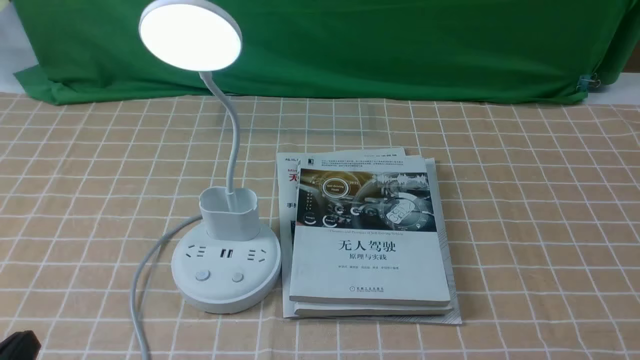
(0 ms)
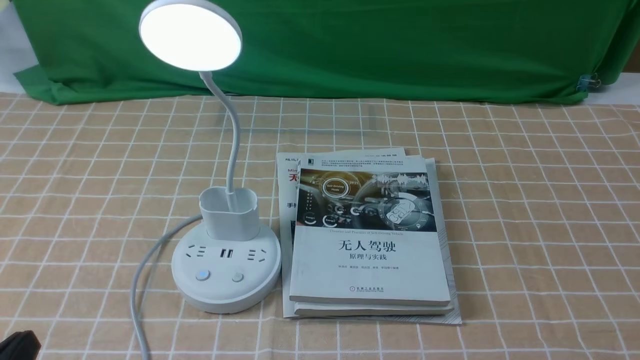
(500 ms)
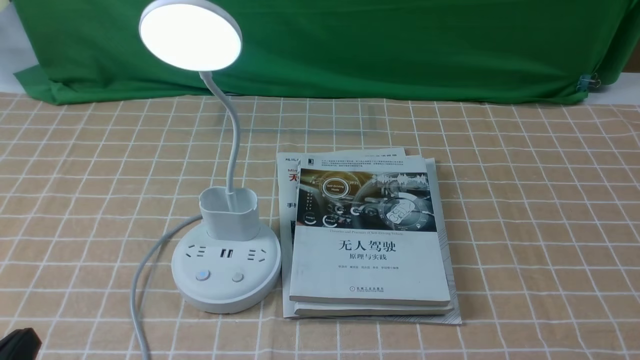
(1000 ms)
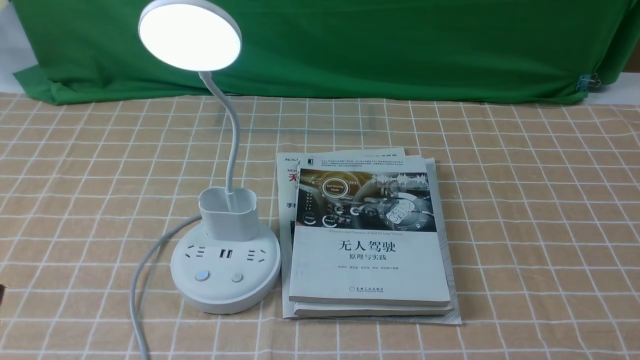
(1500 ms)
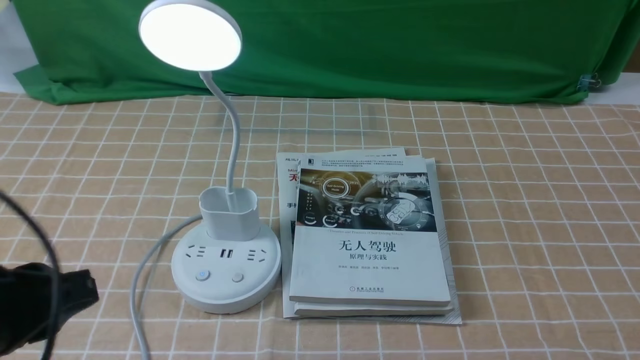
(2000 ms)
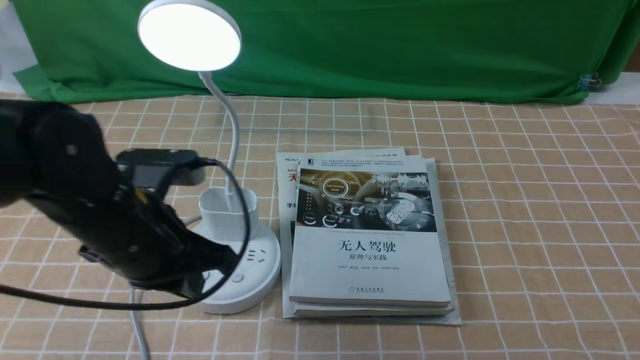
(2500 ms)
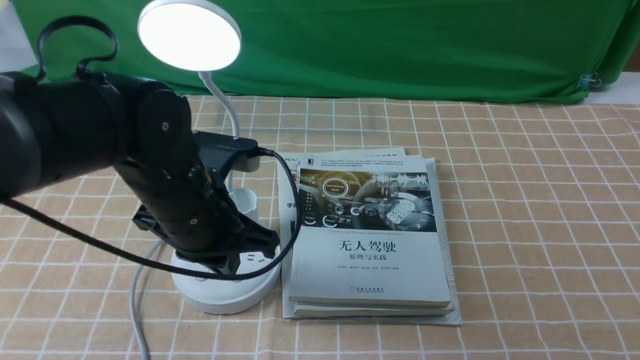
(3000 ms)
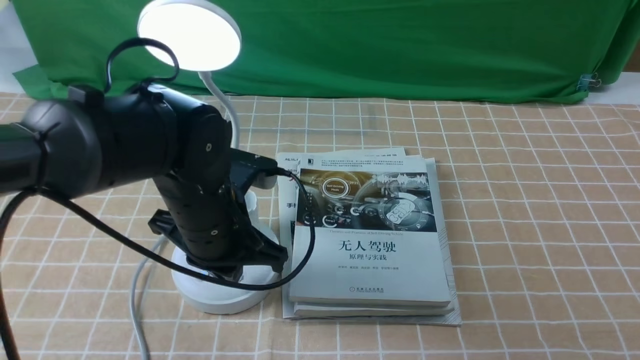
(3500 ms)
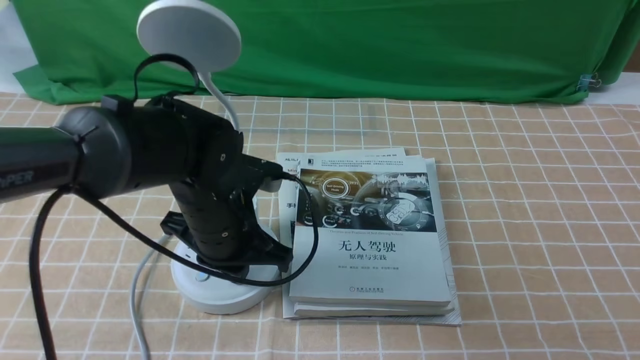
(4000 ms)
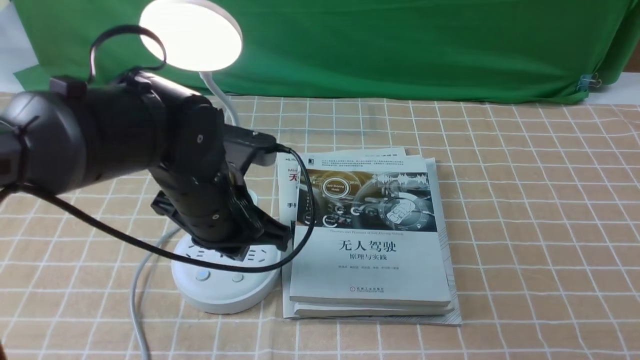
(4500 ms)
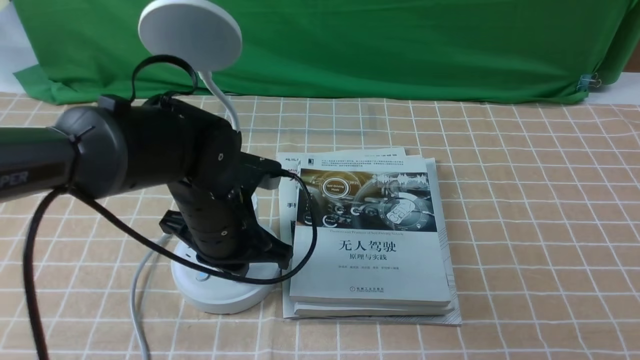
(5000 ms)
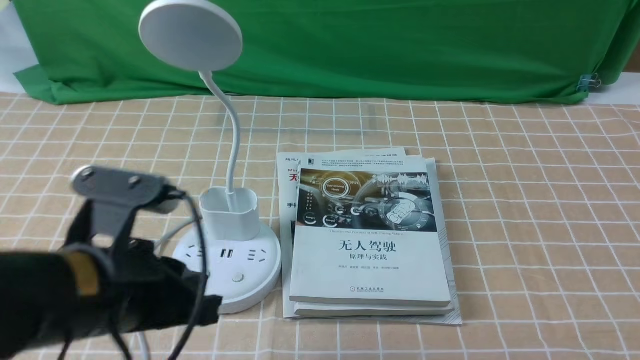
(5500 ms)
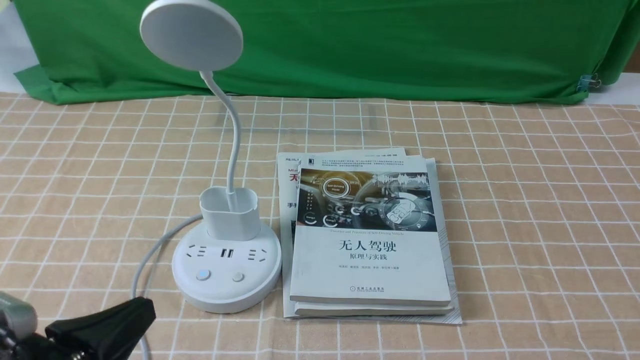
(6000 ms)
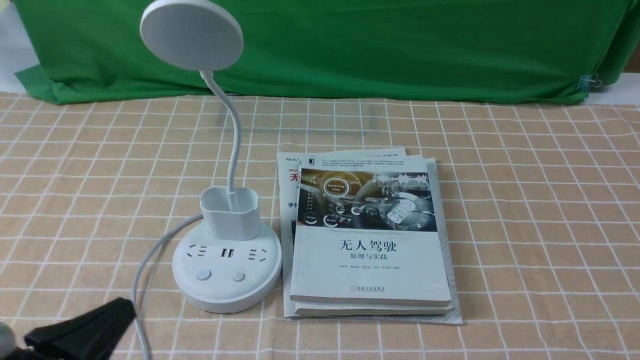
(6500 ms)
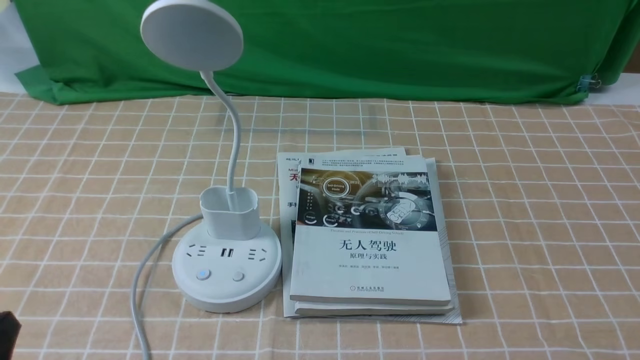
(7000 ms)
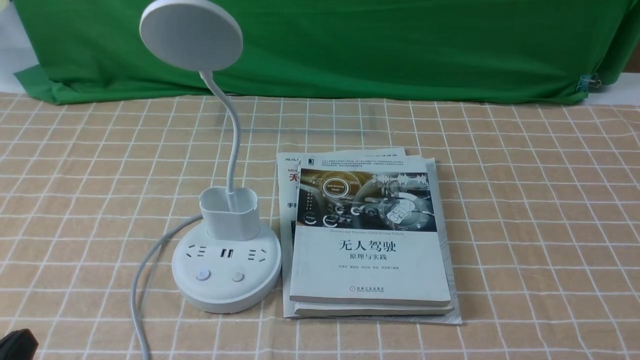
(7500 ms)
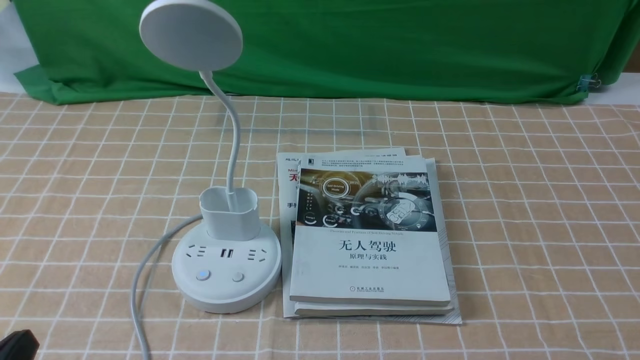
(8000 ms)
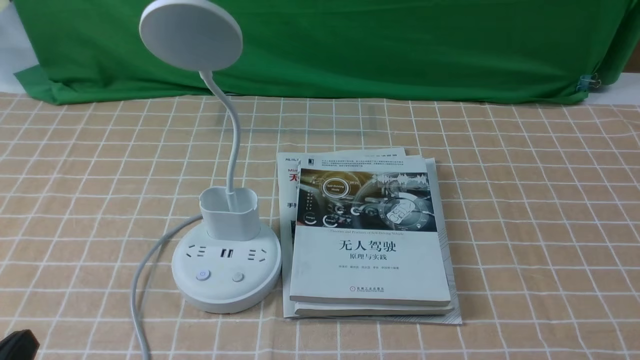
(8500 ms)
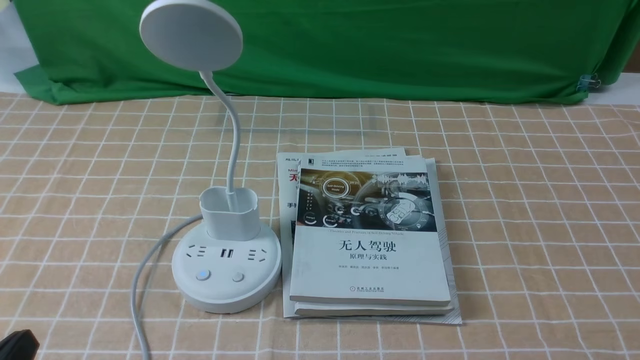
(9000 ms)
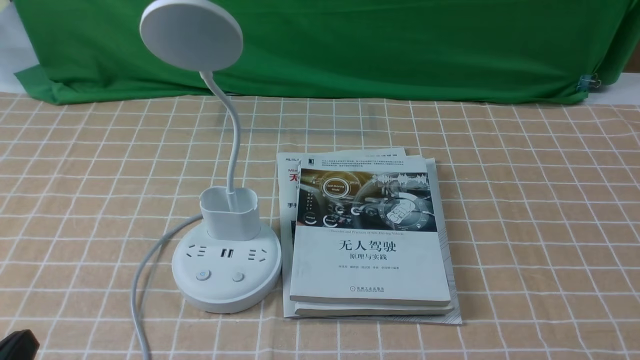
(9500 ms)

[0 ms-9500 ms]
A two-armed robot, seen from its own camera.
Task of the whole recording: turn off the desk lamp on the light coffee tablecloth by hand.
Step, 0 ms to 5000 ms: use the left arm to press the button switch on the lamp holder.
2000 ms to 4000 ms: The left gripper is displaced forward and to the right by about 25 cm, and closes its fingers.
4000 ms to 5500 ms: The left gripper is displaced backward and upward by roughly 10 cm.
5500 ms to 7500 ms: The left gripper goes roughly 20 cm backward, to the left and downward.
7500 ms to 9500 ms: Both grippers stay about where they are.

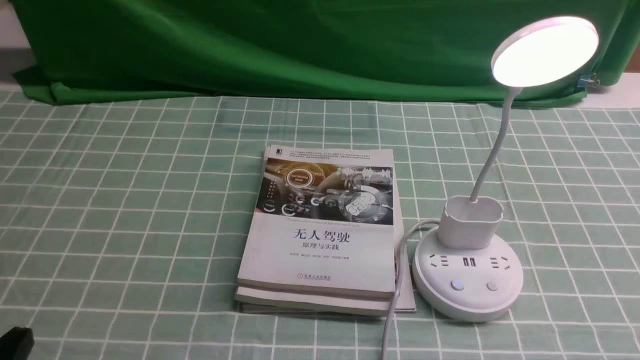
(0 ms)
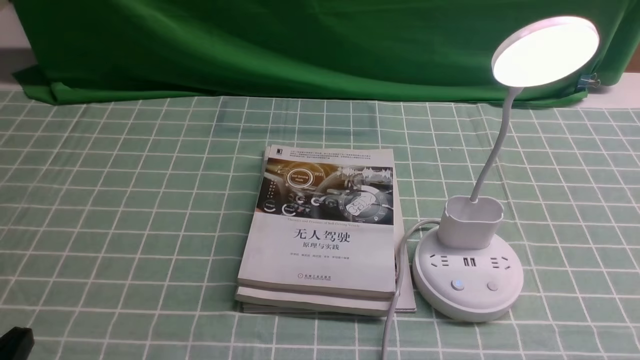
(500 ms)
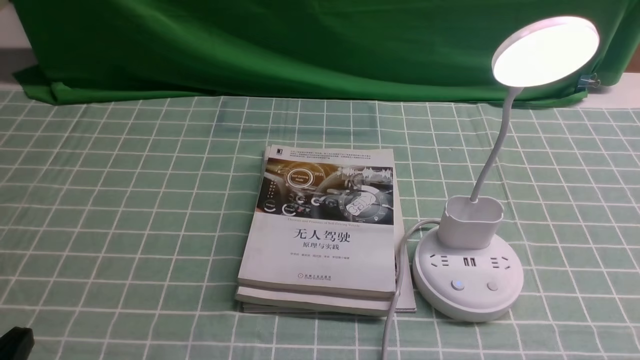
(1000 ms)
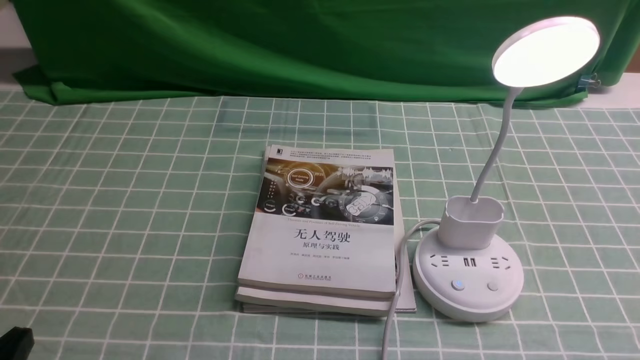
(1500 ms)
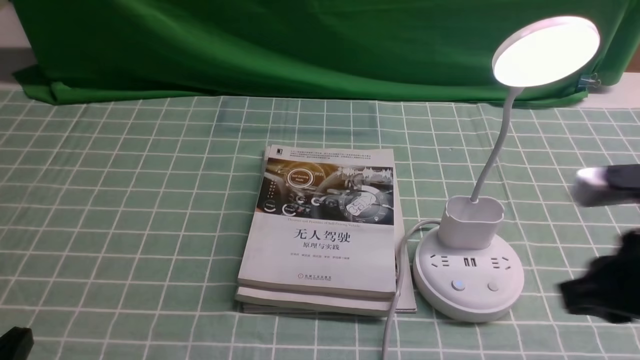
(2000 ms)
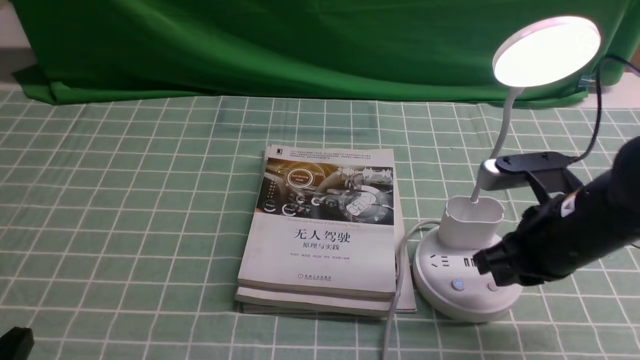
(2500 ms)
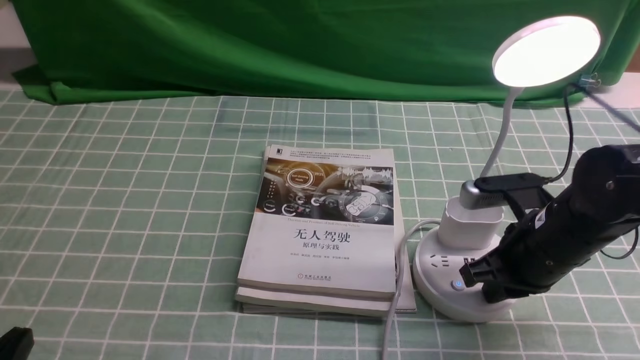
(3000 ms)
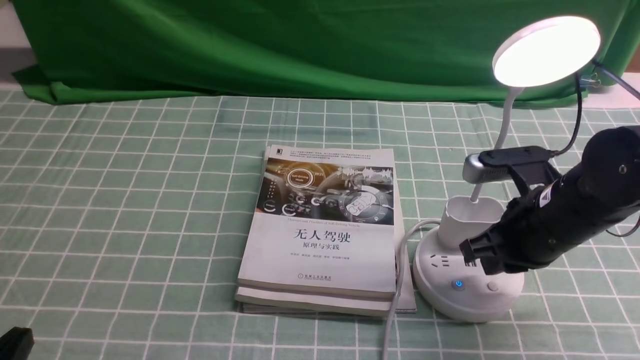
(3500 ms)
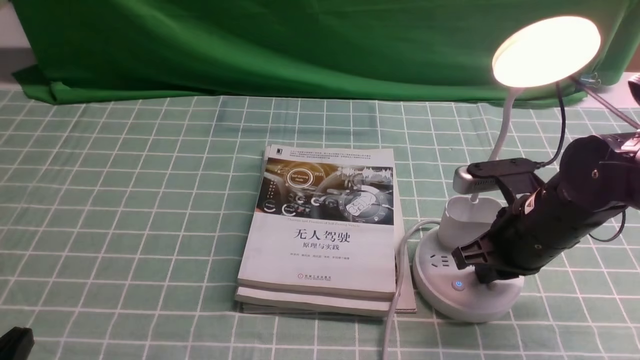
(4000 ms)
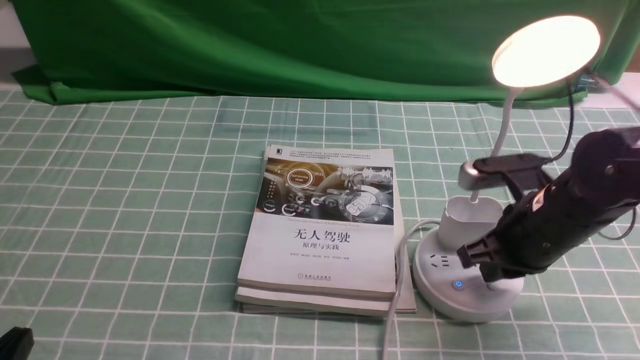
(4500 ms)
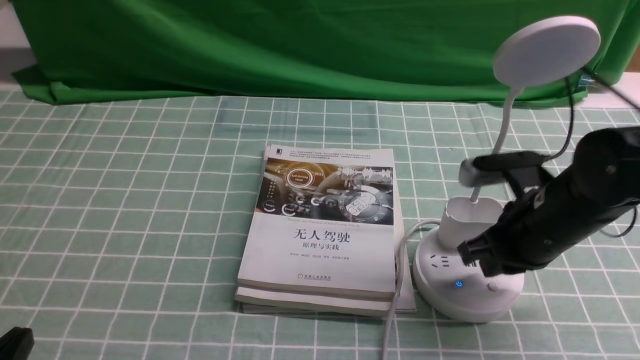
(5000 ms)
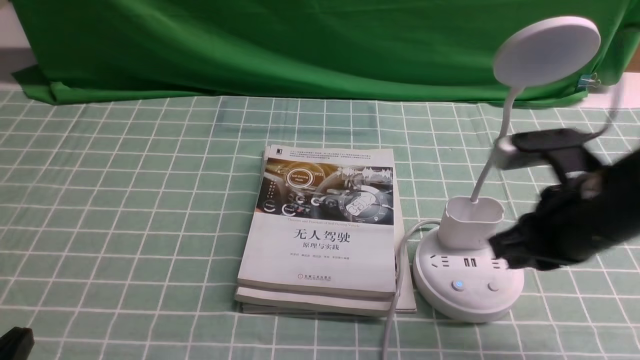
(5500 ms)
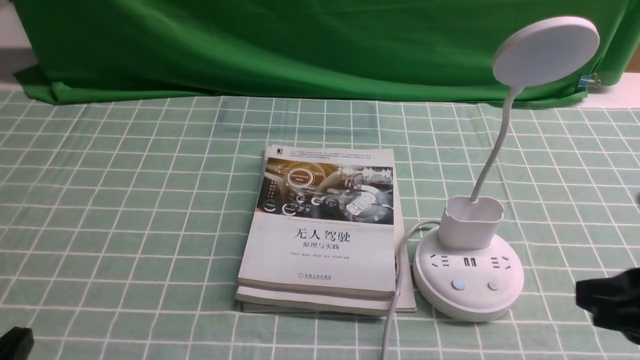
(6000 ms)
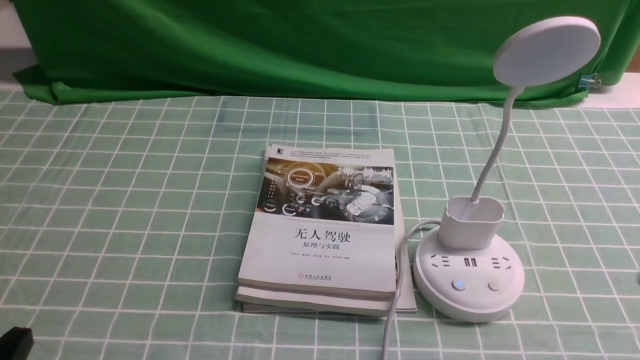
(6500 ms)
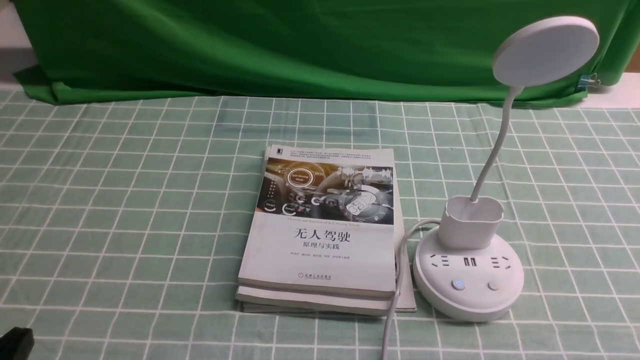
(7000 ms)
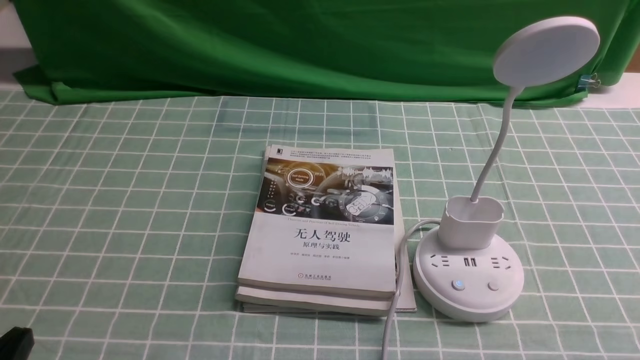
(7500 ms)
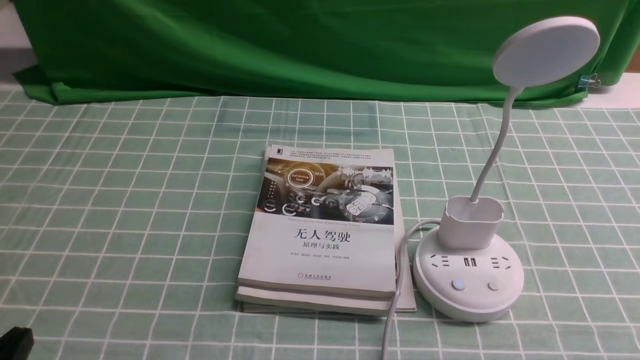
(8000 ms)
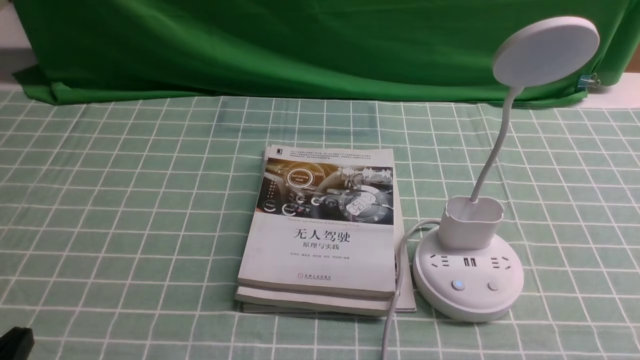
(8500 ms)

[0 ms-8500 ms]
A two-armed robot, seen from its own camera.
Task of the whole recording: turn off the desk lamp on the blue coffee tablecloth by hand.
Step, 0 ms to 5000 ms: use the right arm to press the button switch on the lamp holder.
0 ms to 2000 ms: The right gripper heads forward, upward and to the left, covering about 15 cm, and closes up.
2000 ms to 4000 ms: The right gripper moves forward and downward, some 10 cm.
4000 ms to 6500 ms: The right gripper is displaced backward and to the right by roughly 20 cm.
